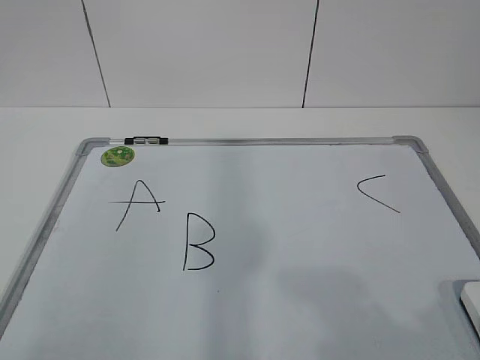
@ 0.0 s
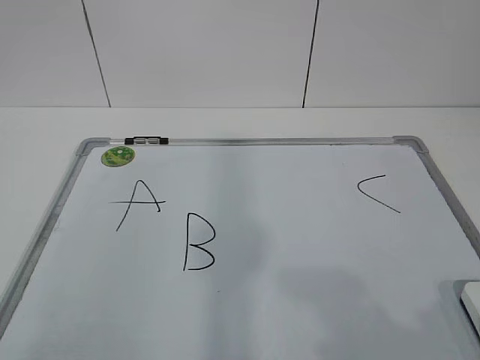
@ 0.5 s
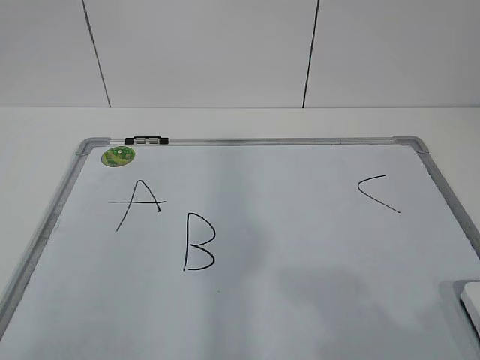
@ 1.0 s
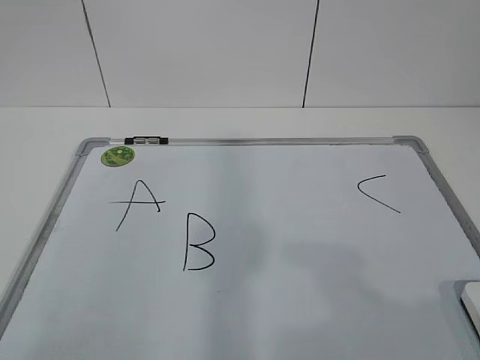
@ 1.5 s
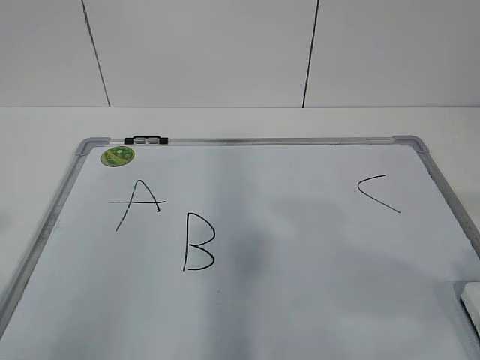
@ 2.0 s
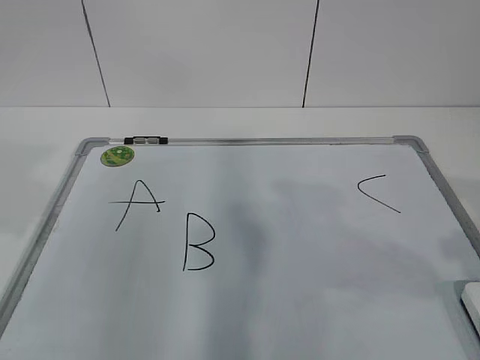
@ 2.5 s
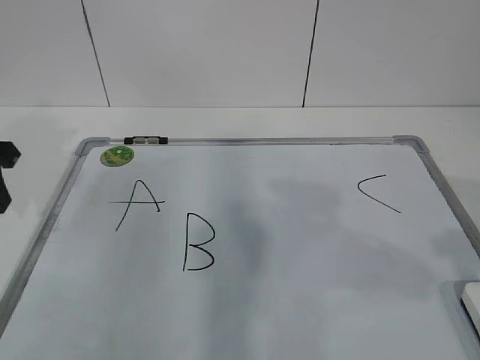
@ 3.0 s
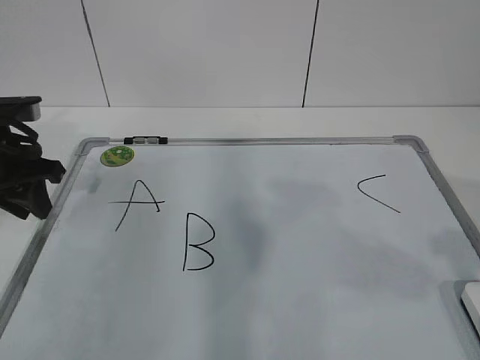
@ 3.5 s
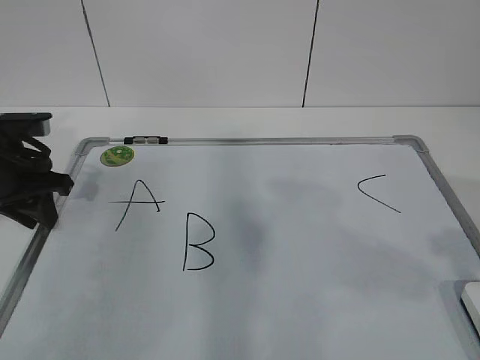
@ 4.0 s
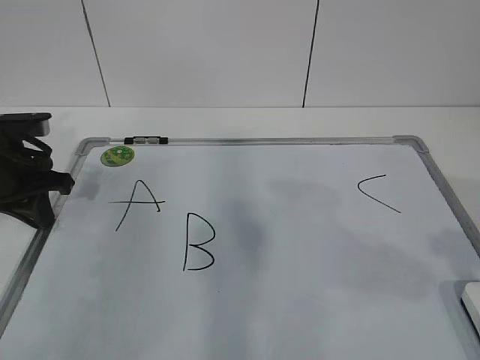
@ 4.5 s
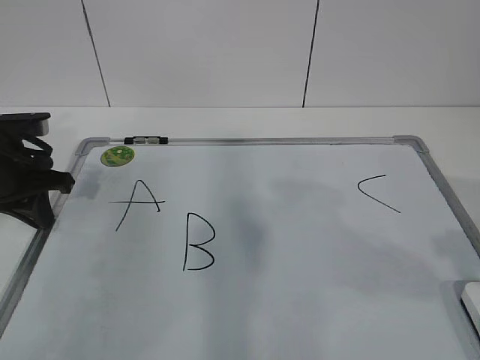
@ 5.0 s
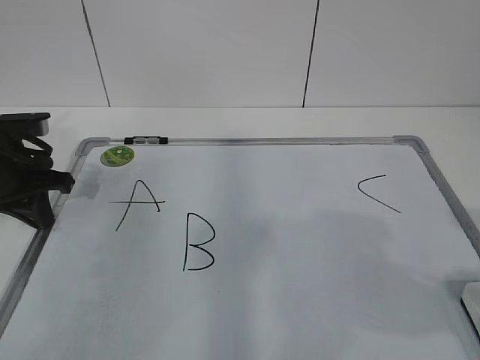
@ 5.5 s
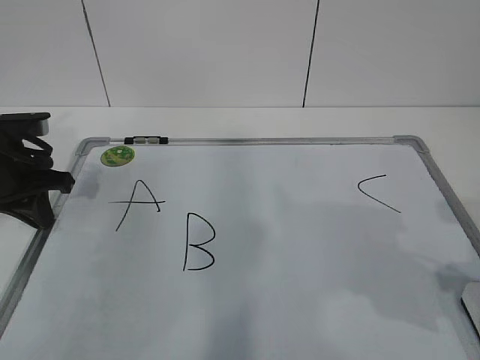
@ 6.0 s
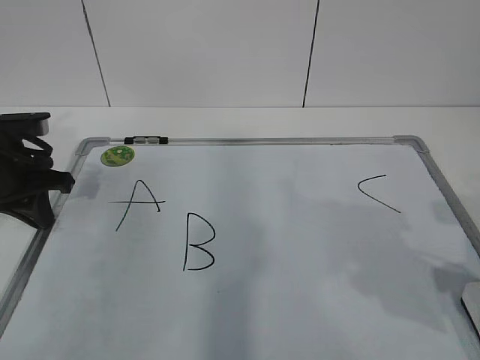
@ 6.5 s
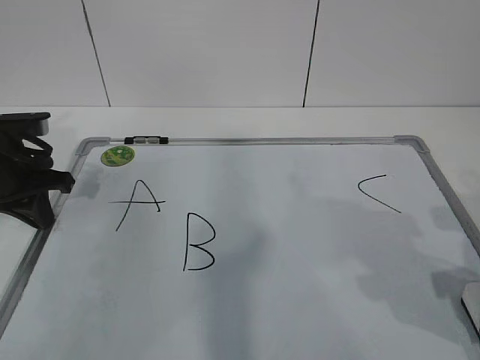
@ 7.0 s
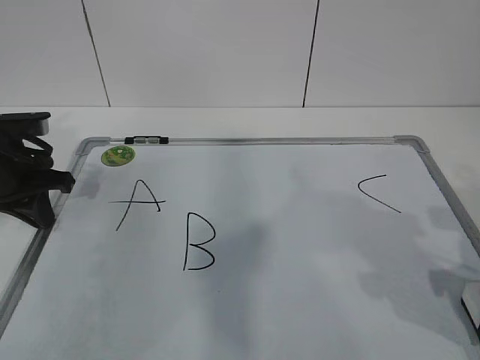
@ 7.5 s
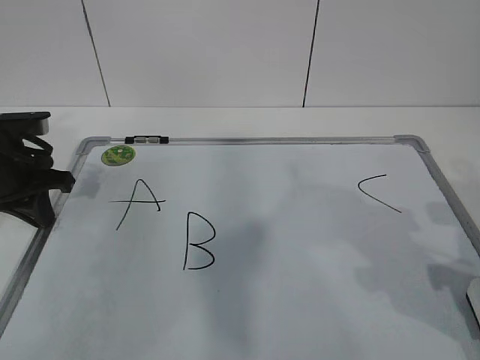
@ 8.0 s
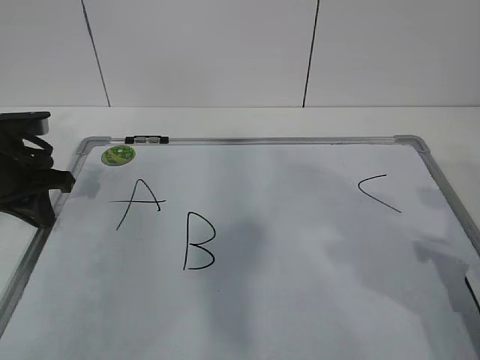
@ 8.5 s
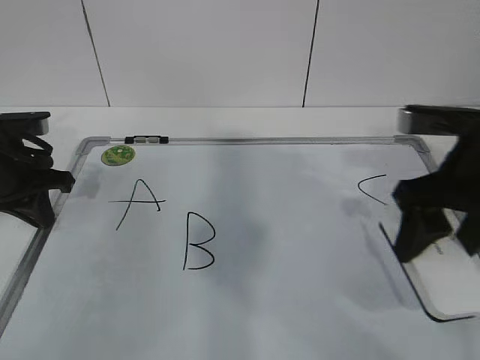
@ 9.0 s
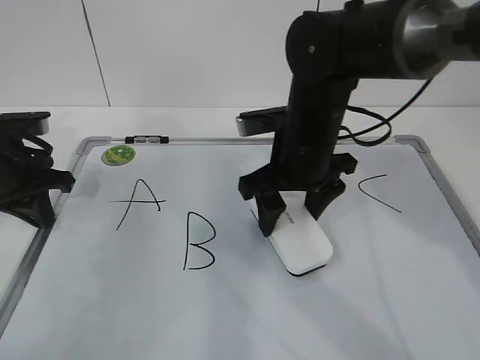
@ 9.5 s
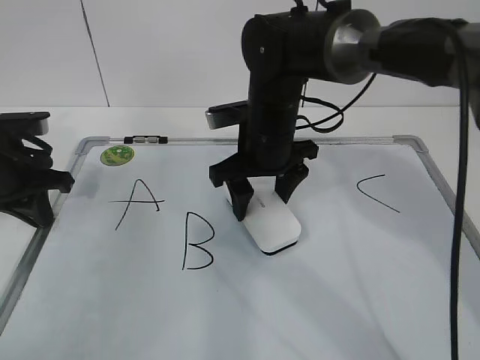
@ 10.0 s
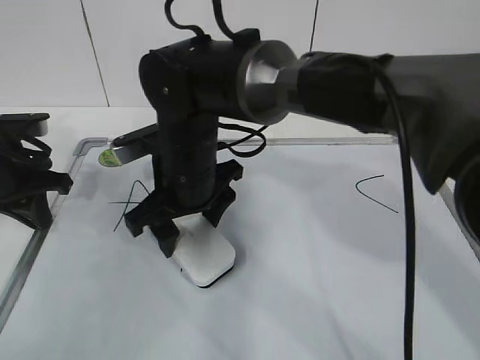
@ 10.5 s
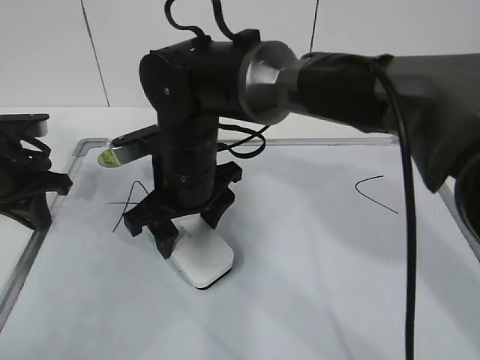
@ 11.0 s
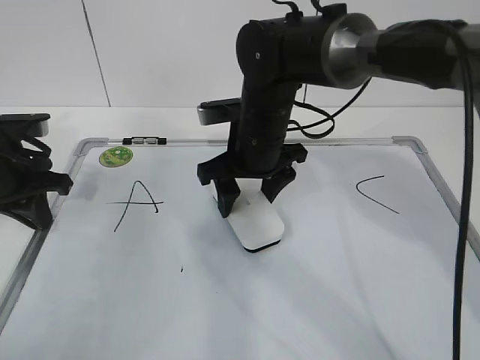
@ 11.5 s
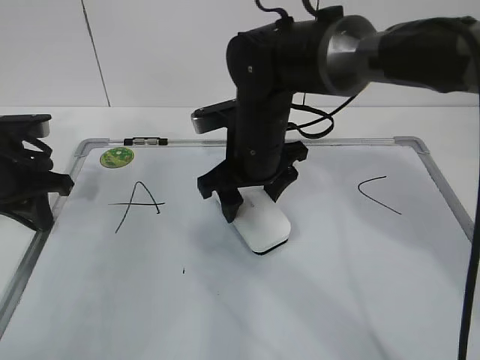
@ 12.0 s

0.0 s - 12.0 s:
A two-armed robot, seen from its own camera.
Task of the whole recording: pick up the eraser on the blackboard and erase the letter "B".
Step, 0.0 s - 3.5 s: Hold the drawing board steady with your left hand.
Step, 6.5 s - 11.5 s: Erase the letter B with your right hand.
2.0 s - 4.0 s: The left gripper heads forward and downward, covering approximately 30 cm.
8.0 s - 10.0 s: The right gripper shifts roughly 30 cm to the left and forward.
10.0 s - 12.0 s: The right gripper moves approximately 10 cm to the left and comes back.

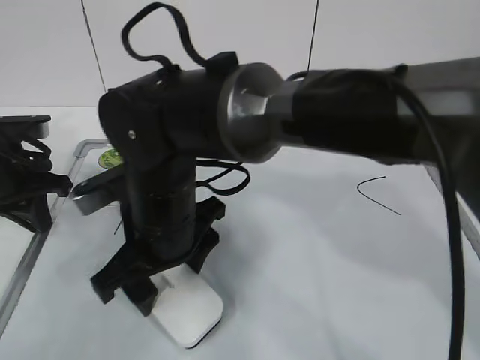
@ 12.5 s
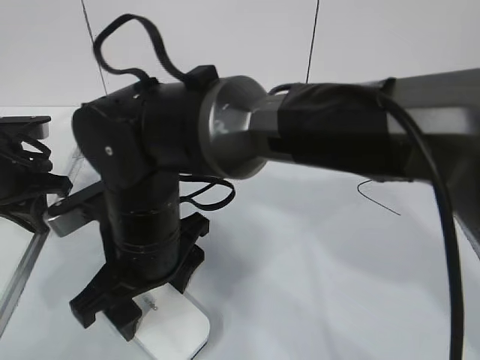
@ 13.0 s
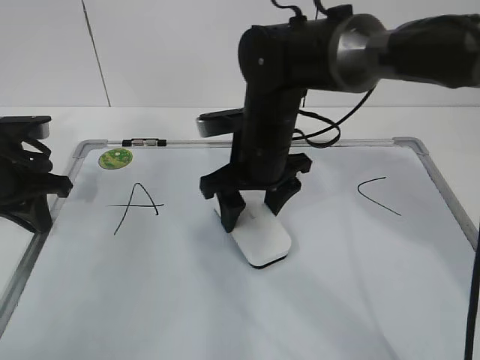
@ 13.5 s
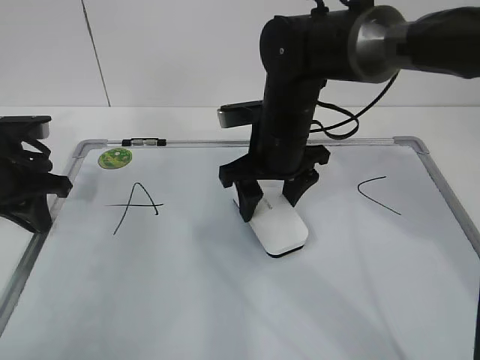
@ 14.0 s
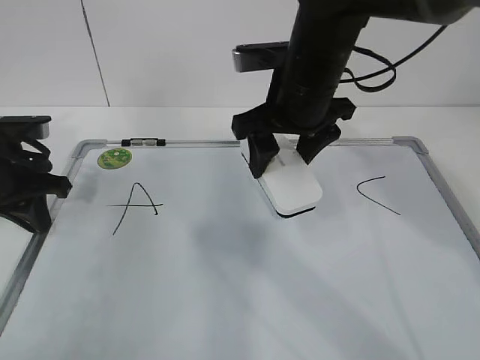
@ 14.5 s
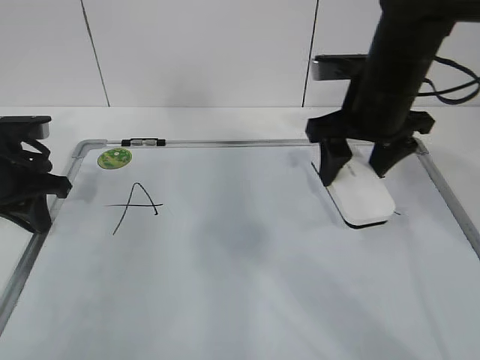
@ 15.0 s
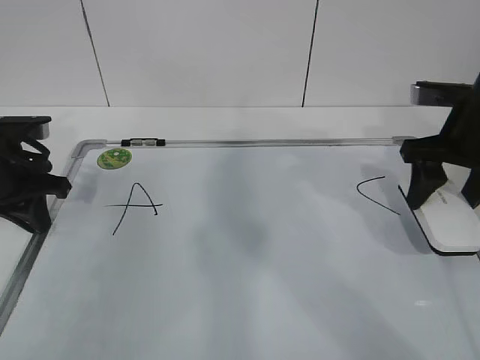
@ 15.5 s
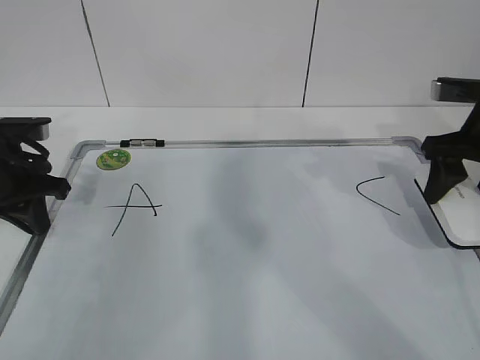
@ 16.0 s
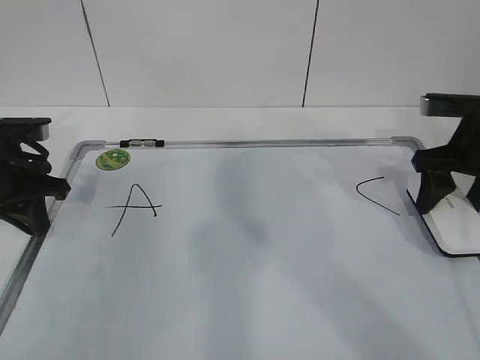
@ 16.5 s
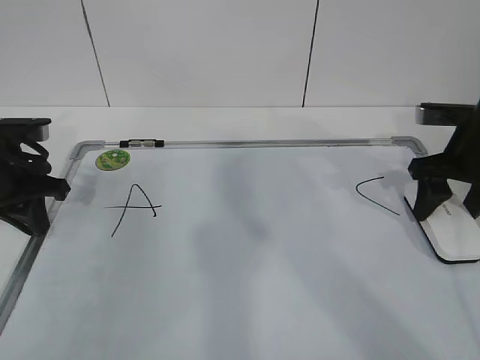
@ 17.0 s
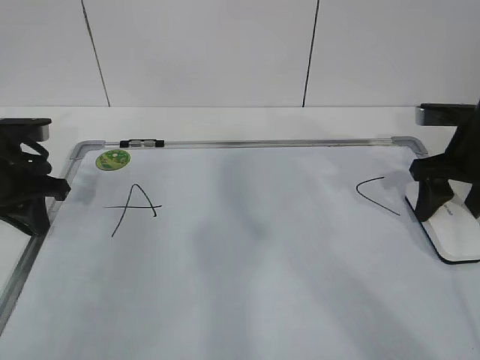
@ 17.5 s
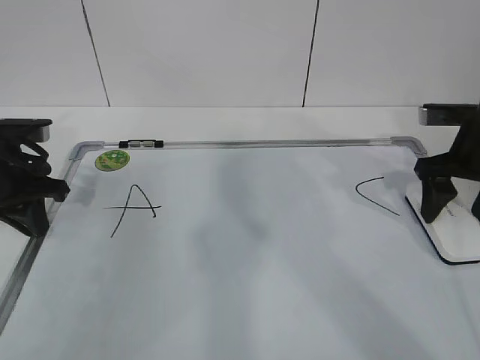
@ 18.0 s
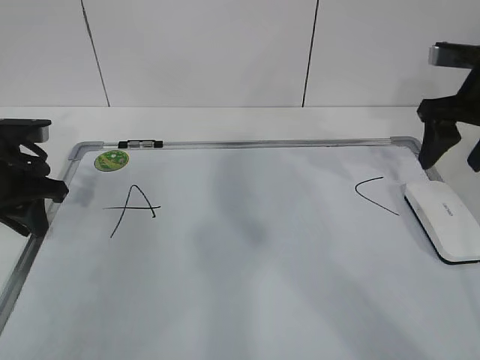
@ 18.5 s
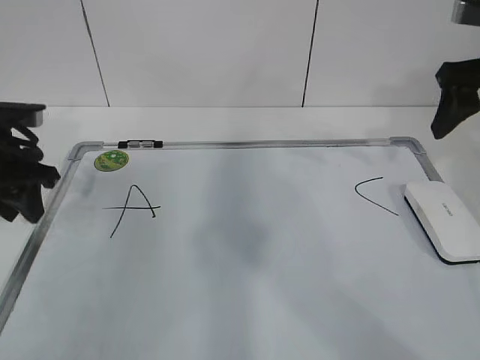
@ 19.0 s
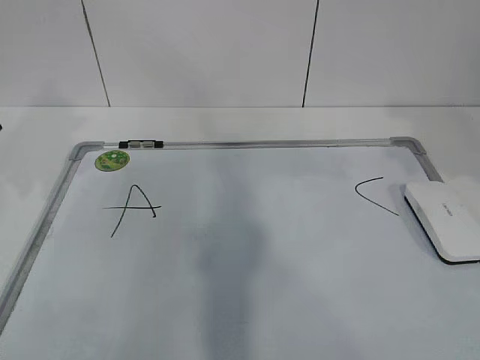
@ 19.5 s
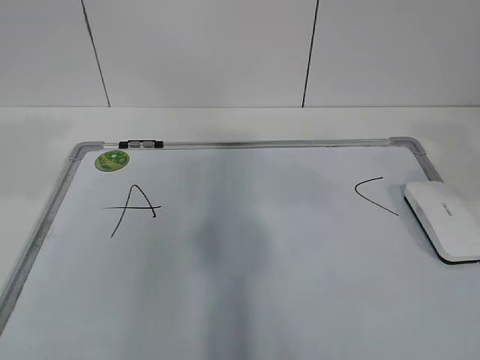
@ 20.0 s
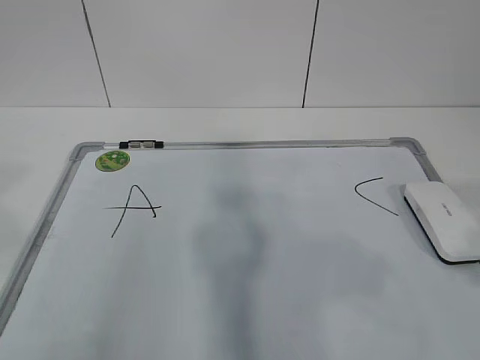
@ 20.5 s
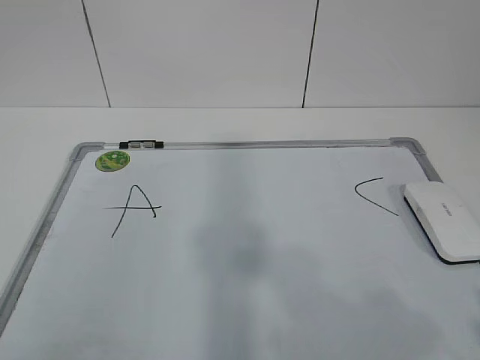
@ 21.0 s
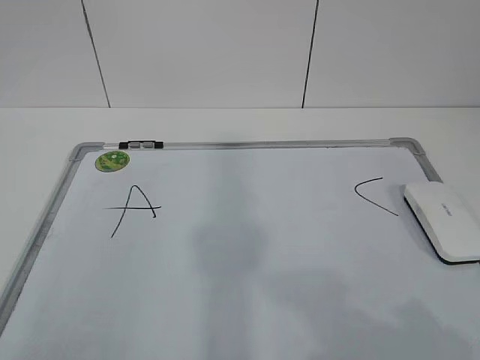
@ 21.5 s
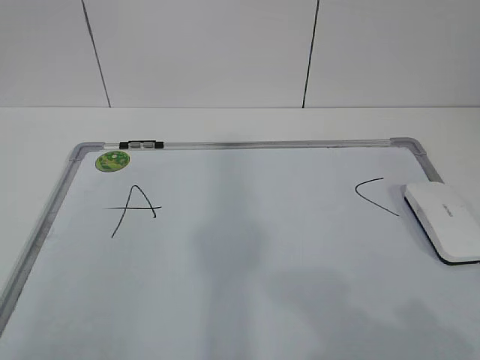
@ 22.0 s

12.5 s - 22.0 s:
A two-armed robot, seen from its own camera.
Task of the whole recording: pick up the eraser on the blackboard and erase the letter "B".
Step, 12.5 s - 14.5 s: Put down the eraser with your right hand.
12.5 s - 14.5 s: The right gripper travels to the right, forward and upward by approximately 20 cm.
14.5 s - 16.5 s: The right gripper goes about 20 cm to the right.
16.5 s - 18.0 s: The right gripper opens up.
18.0 s - 20.0 s: The right gripper moves backward and upward, roughly 30 cm, and closes up. Meanwhile the left gripper goes roughly 25 cm upward and backward, and opens its fingers.
20.0 s - 22.0 s: The left gripper travels backward by about 20 cm. Meanwhile the right gripper shifts approximately 20 cm backward and downward.
